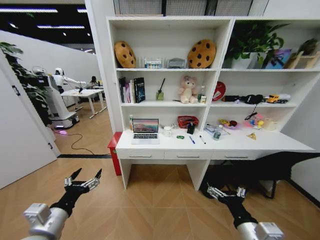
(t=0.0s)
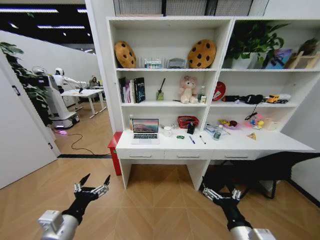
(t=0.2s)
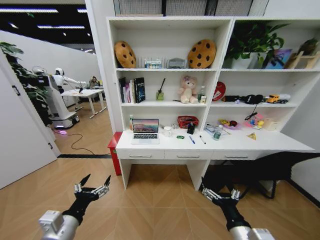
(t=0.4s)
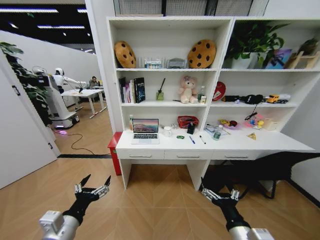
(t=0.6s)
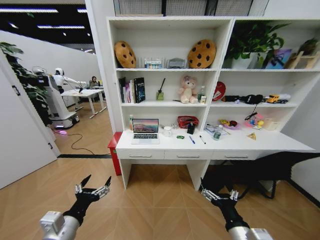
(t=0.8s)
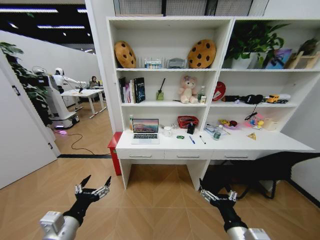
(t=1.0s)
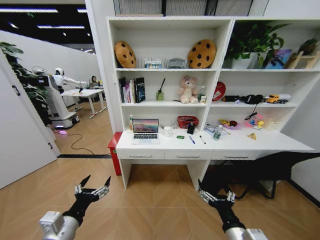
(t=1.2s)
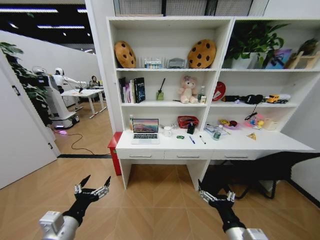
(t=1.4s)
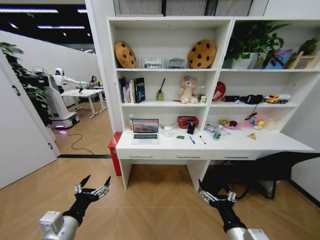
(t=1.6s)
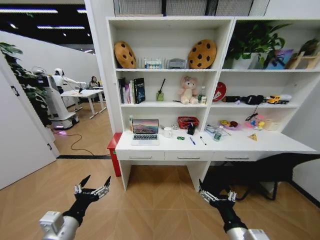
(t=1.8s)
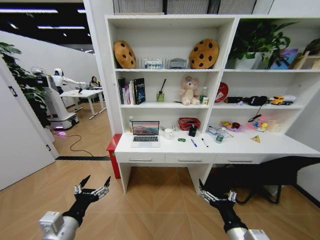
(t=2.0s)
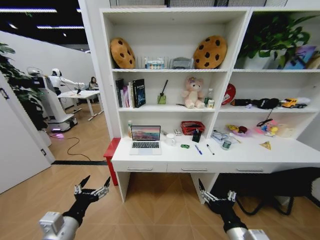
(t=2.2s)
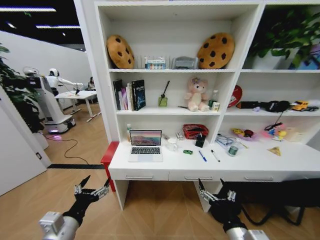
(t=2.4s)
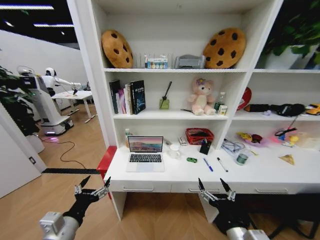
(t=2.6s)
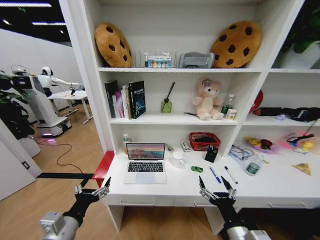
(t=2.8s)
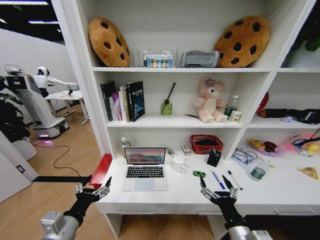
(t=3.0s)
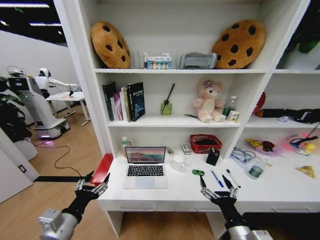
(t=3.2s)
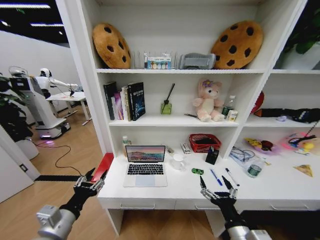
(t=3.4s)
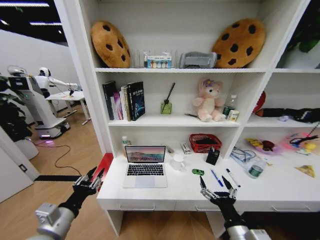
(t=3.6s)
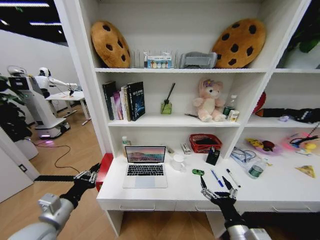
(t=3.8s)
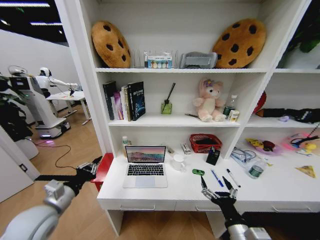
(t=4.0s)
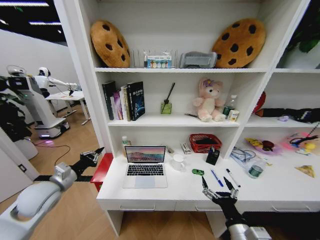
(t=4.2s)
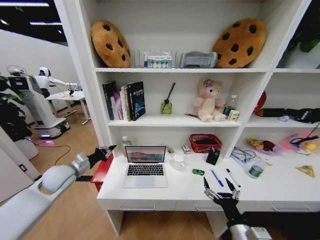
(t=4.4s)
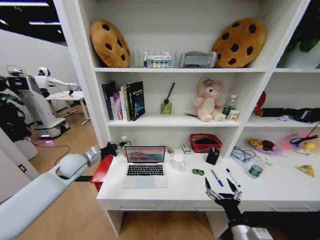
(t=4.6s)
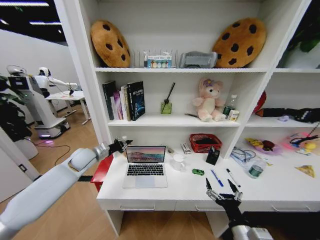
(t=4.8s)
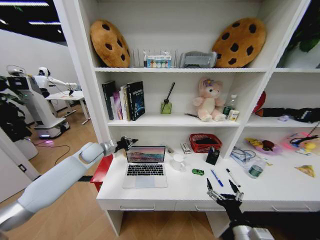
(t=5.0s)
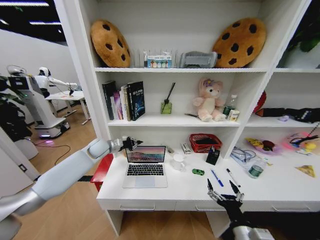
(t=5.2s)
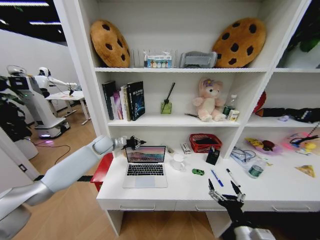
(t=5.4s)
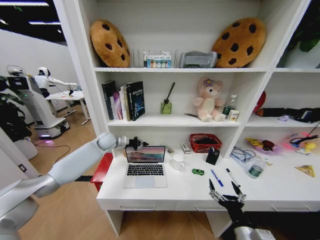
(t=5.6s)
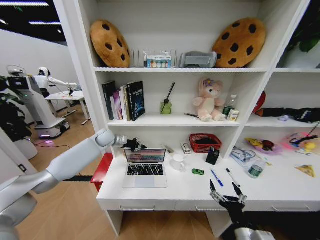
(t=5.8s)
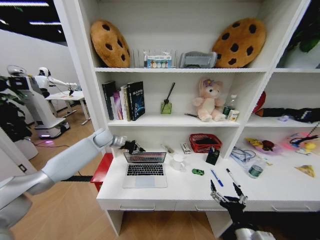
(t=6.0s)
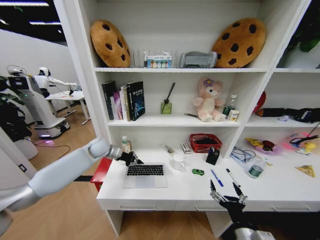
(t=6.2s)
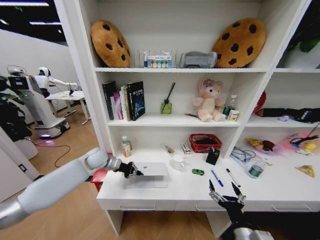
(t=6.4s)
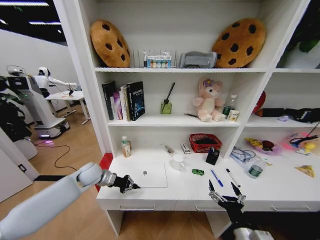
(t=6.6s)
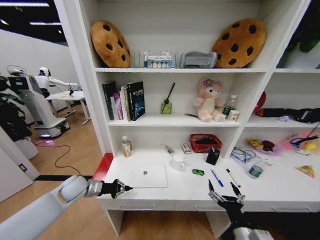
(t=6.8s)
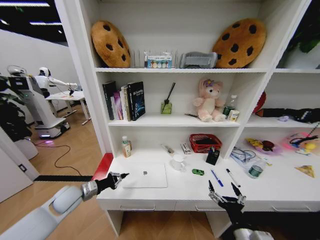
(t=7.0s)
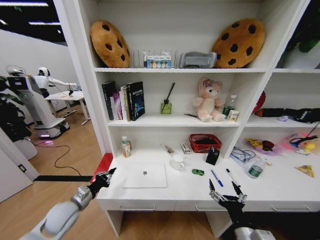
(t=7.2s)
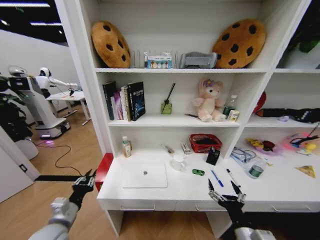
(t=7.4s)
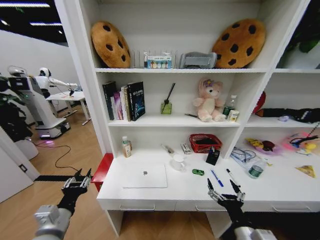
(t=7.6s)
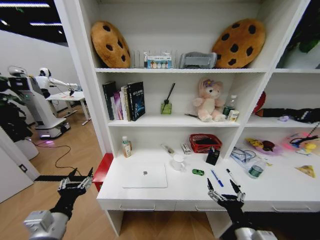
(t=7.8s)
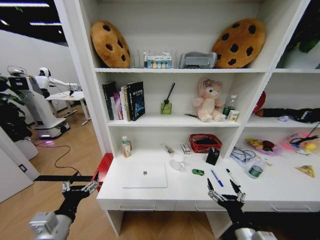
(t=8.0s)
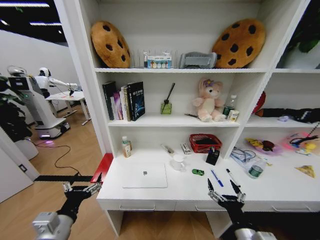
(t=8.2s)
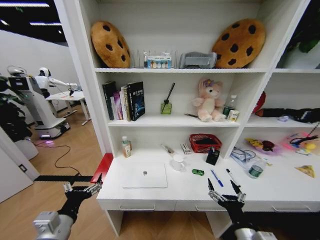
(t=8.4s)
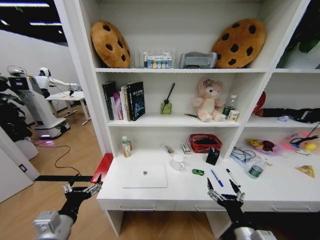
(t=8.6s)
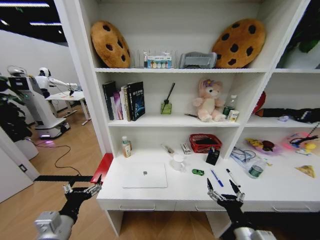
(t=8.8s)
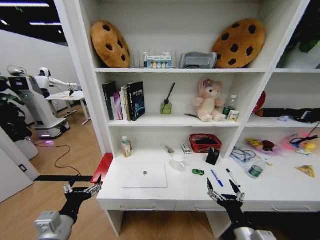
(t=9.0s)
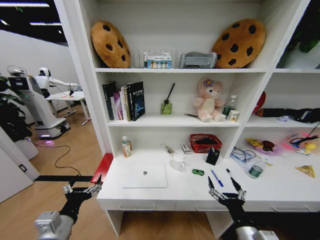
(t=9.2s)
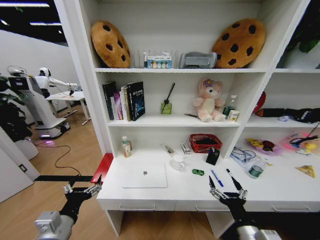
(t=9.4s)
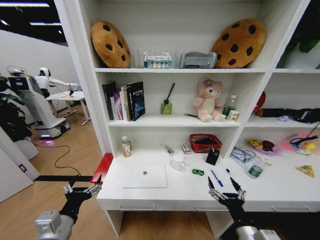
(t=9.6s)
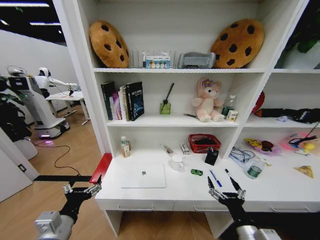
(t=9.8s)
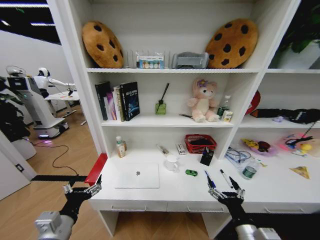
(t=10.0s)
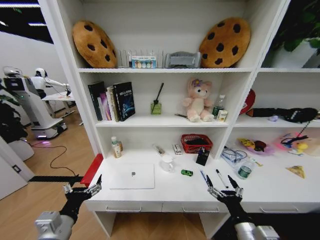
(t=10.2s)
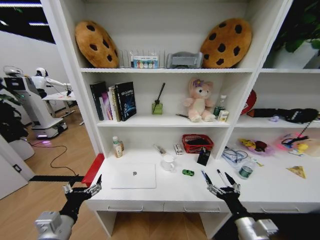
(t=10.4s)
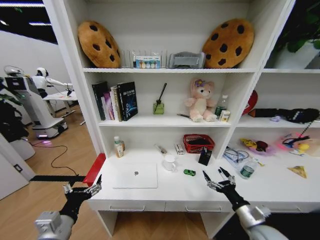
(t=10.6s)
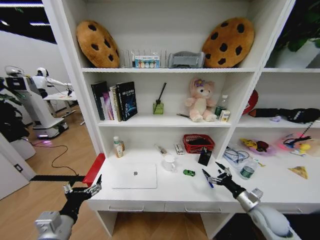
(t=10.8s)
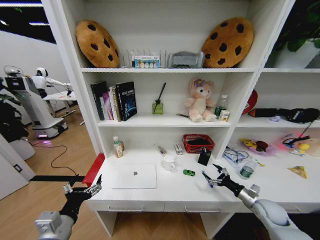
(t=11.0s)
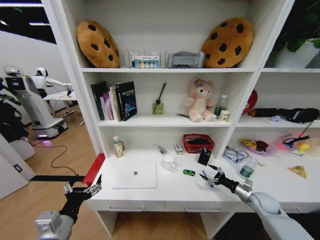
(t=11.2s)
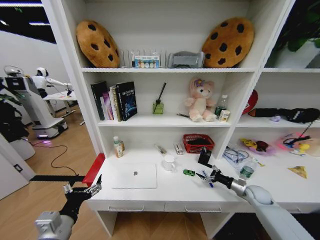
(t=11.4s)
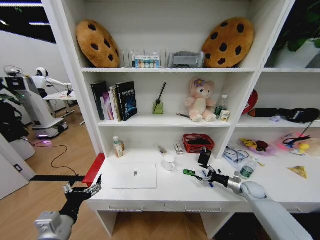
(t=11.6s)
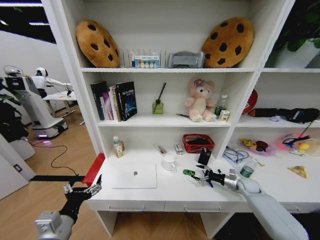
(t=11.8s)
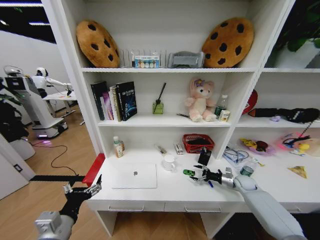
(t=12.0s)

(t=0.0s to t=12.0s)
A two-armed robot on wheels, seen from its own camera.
Task of the whole recording: Organize the objects on the table.
t=3.0s - t=4.4s: The left gripper travels forward by approximately 20 cm, and closes.
t=4.4s - t=6.0s: The left gripper moves forward and to the right, about 25 cm.
t=6.0s - t=7.6s: The left gripper moves backward, approximately 40 cm, and opens its fingers.
t=7.6s - t=9.0s: The left gripper opens its fingers.
t=9.0s - t=10.4s: The right gripper ends up approximately 5 cm from where it was.
t=10.4s - t=12.0s: The right gripper heads forward and to the right, covering roughly 35 cm.

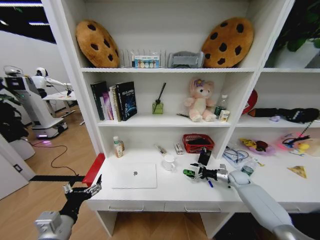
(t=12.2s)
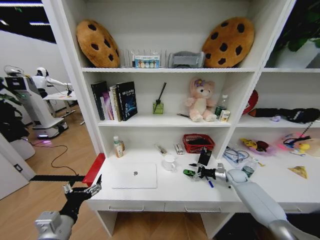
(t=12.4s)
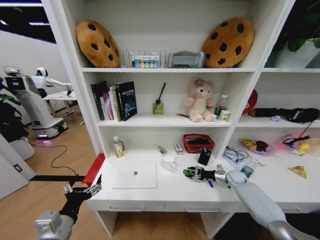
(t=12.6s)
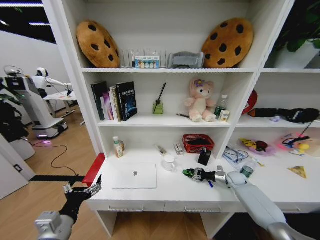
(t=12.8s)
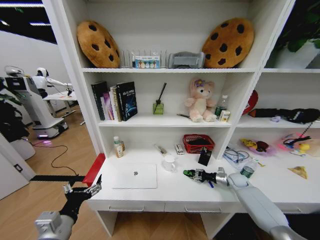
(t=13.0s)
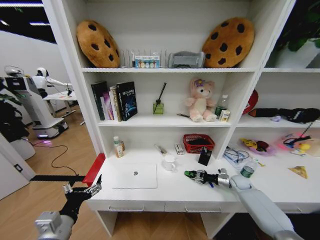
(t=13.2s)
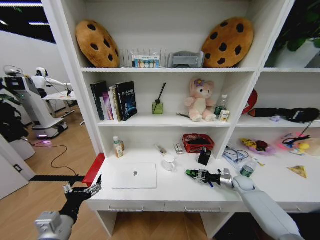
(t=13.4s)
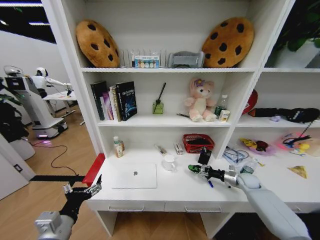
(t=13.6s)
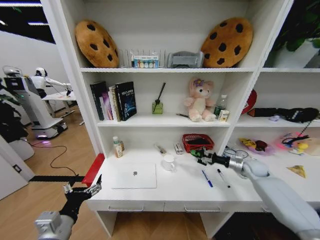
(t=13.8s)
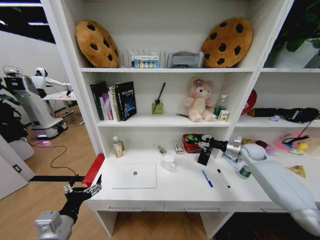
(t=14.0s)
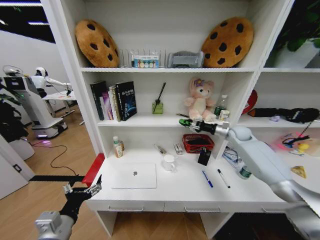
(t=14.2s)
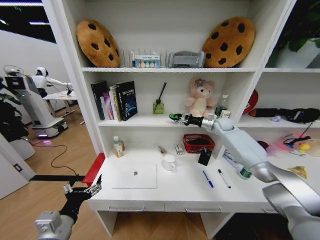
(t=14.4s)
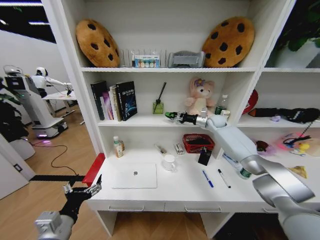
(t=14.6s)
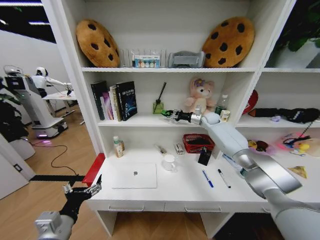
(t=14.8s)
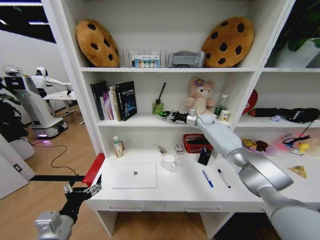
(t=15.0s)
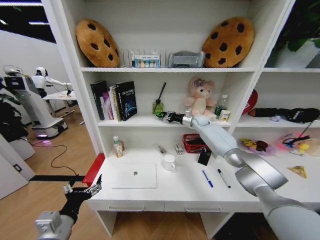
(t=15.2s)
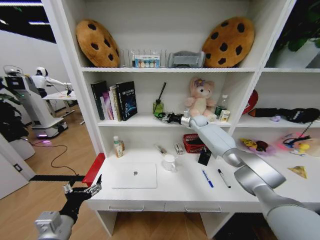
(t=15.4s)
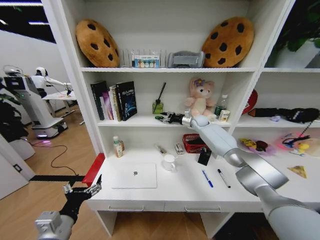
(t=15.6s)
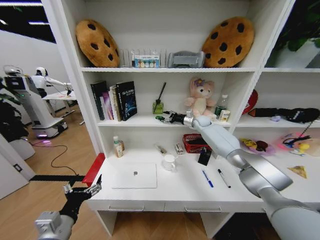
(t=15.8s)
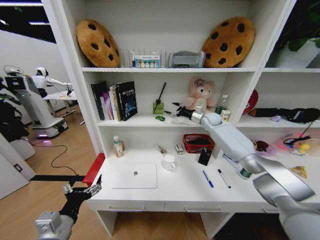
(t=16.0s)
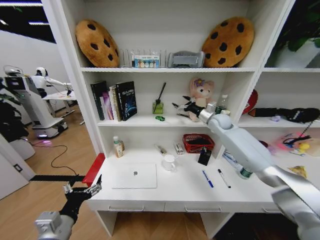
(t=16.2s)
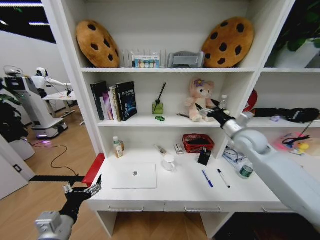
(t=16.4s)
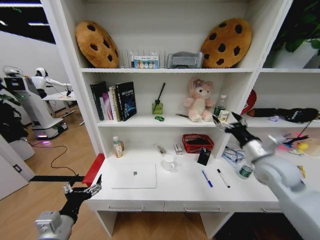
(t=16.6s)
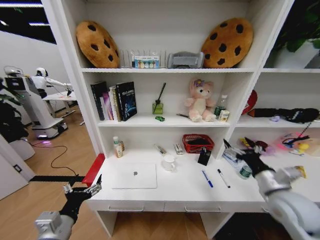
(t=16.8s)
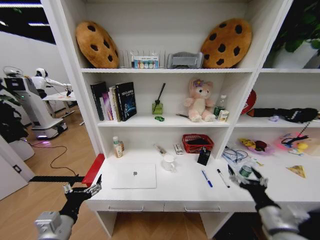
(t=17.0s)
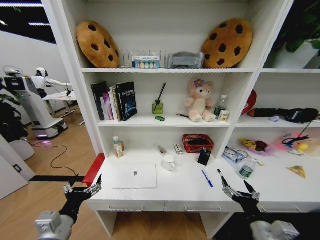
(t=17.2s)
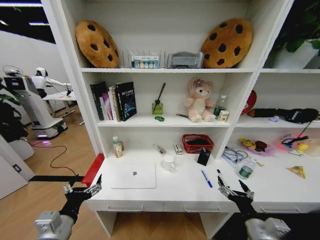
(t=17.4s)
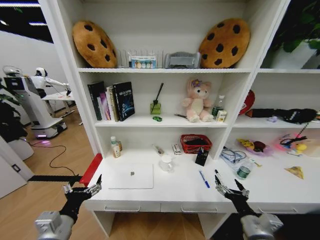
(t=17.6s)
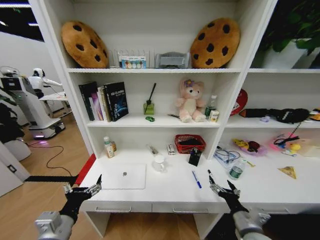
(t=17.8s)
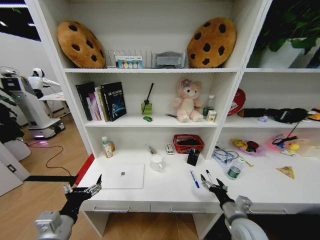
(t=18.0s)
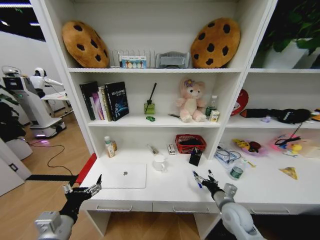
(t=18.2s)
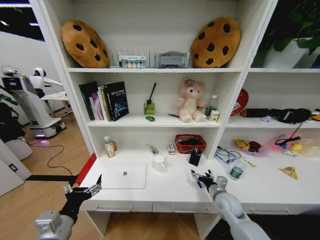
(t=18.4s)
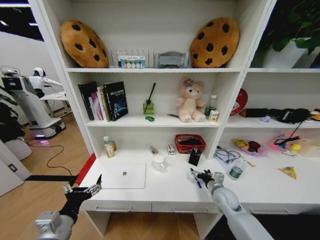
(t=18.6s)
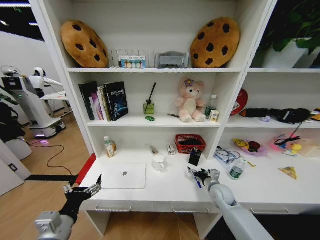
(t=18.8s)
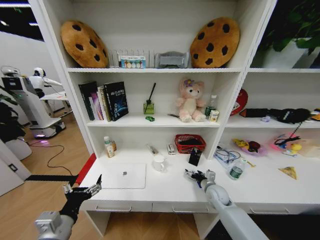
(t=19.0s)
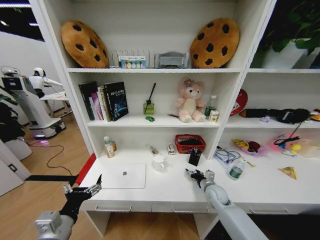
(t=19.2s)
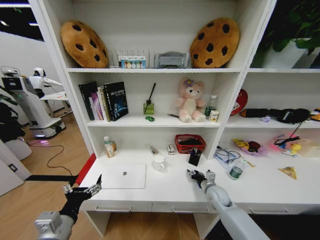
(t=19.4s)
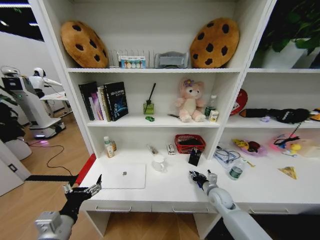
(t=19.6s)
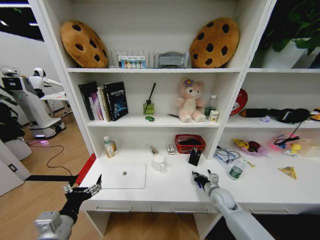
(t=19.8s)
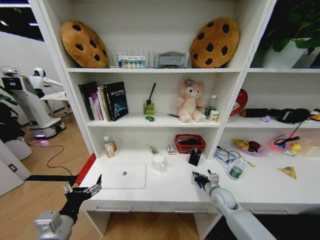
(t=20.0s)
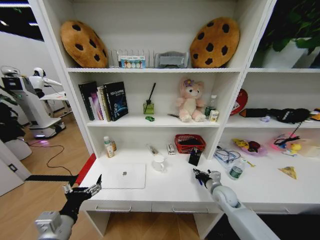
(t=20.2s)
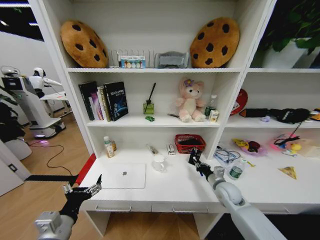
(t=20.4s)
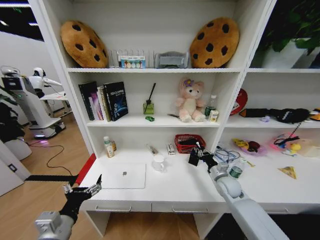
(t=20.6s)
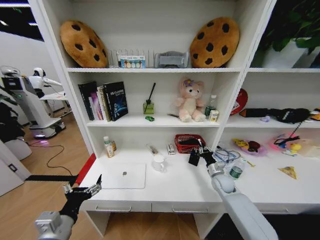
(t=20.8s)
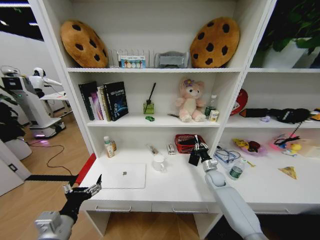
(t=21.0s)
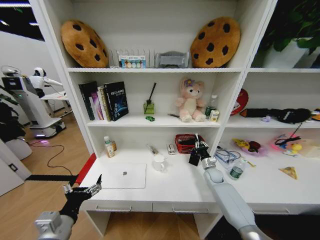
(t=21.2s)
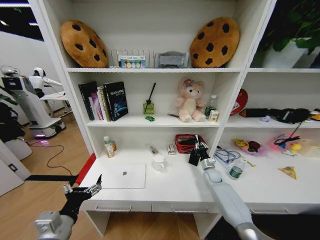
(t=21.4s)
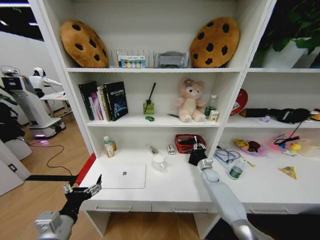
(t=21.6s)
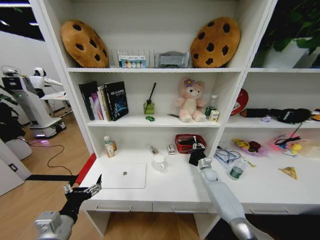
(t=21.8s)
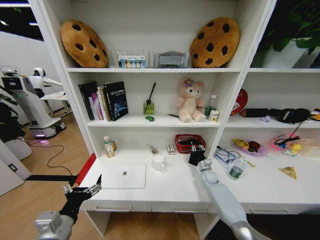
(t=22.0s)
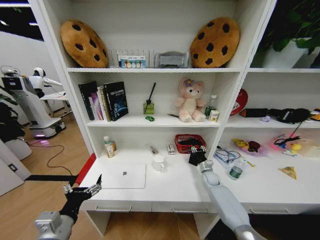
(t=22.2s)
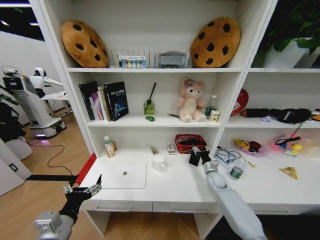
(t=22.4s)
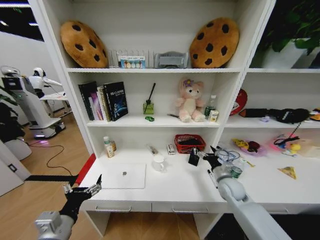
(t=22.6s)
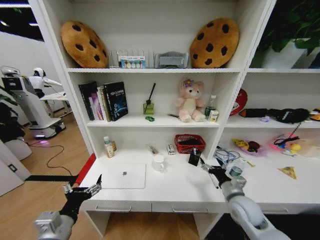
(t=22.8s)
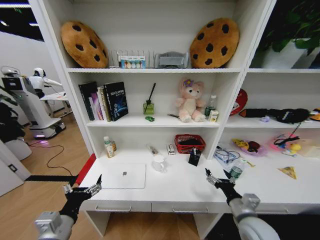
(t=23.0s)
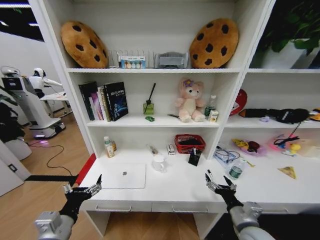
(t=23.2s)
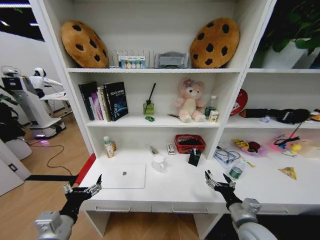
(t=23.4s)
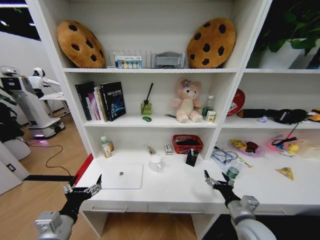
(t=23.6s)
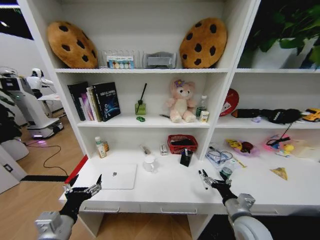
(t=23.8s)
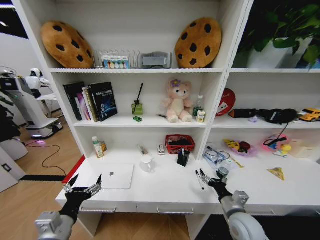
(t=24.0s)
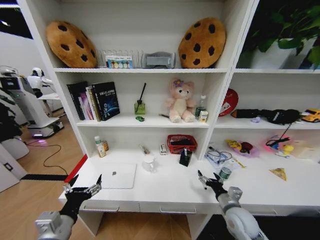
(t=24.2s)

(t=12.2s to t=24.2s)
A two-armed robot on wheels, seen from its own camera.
Task of the whole recording: Organize the objects on the table.
t=12.2s - t=13.8s: The right gripper is displaced upward by approximately 10 cm, and closes up.
t=13.8s - t=15.2s: The right gripper is displaced forward, to the left and upward by roughly 35 cm.
t=15.2s - t=16.6s: The right gripper goes about 35 cm backward, and opens.
t=16.6s - t=18.2s: The right gripper moves downward, some 20 cm.
t=18.2s - t=19.8s: The right gripper is displaced forward by approximately 10 cm, and closes.
t=19.8s - t=21.2s: The right gripper travels forward by roughly 15 cm.
t=21.2s - t=22.6s: The right gripper is displaced backward and upward by some 15 cm, and opens.
t=22.6s - t=24.2s: The right gripper goes about 10 cm backward.
